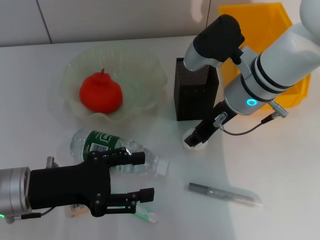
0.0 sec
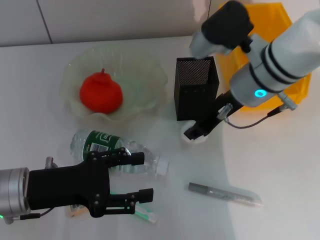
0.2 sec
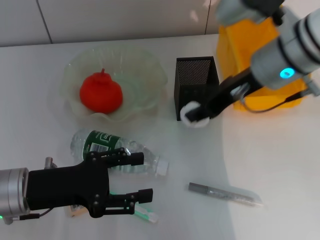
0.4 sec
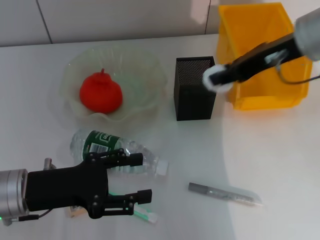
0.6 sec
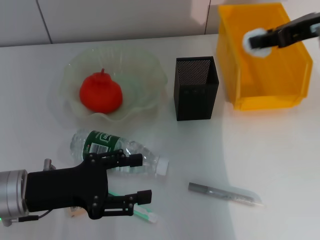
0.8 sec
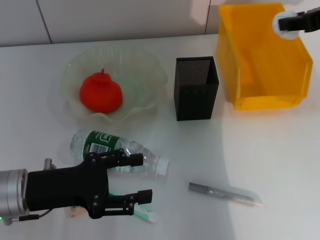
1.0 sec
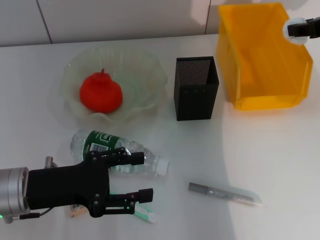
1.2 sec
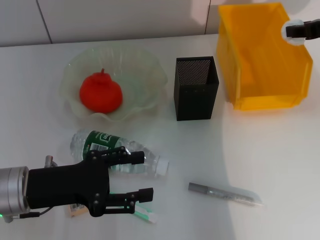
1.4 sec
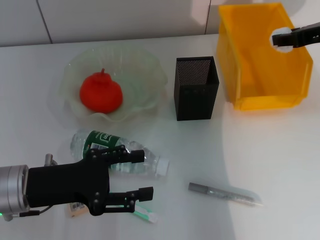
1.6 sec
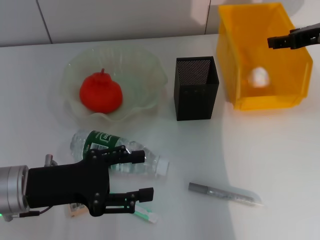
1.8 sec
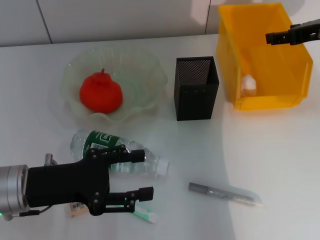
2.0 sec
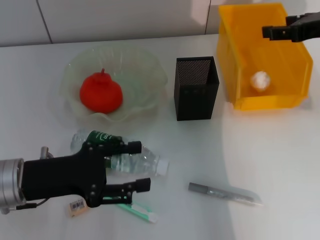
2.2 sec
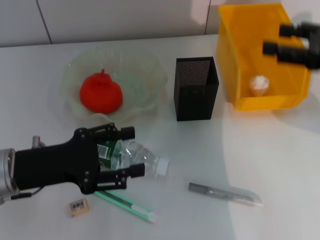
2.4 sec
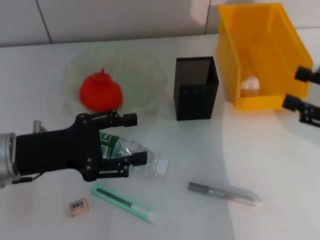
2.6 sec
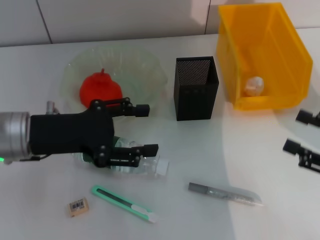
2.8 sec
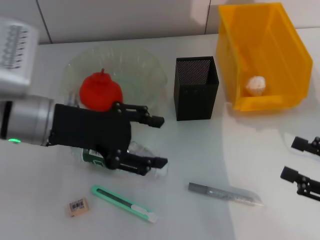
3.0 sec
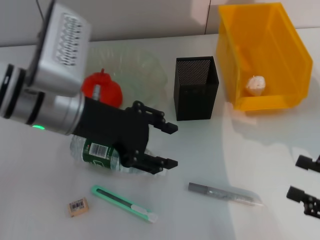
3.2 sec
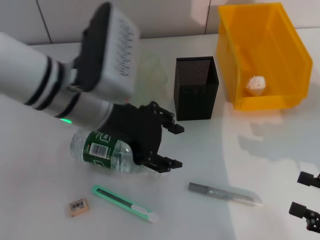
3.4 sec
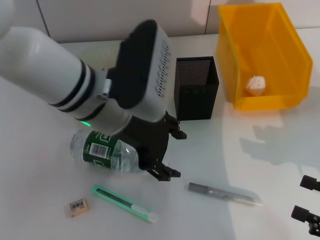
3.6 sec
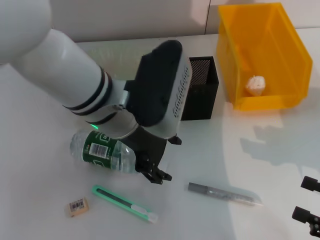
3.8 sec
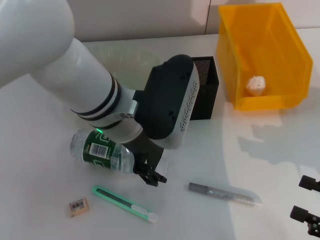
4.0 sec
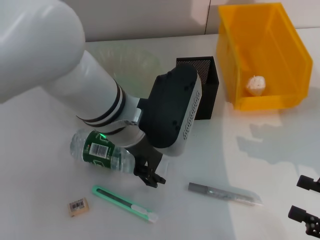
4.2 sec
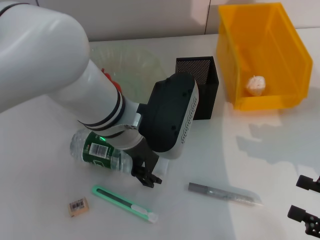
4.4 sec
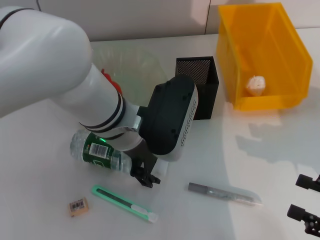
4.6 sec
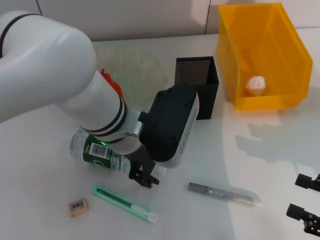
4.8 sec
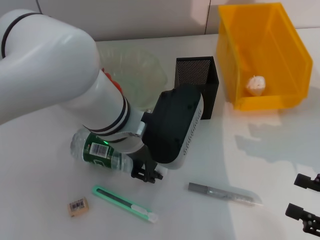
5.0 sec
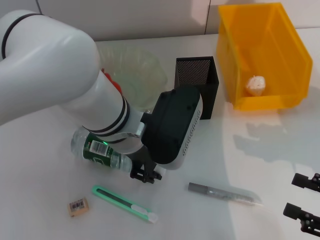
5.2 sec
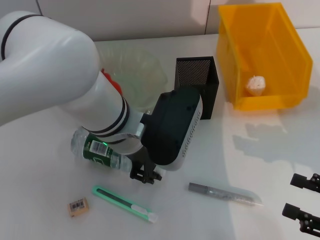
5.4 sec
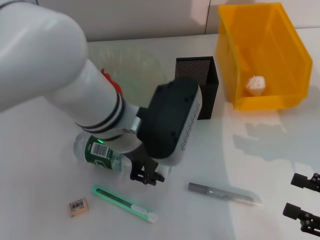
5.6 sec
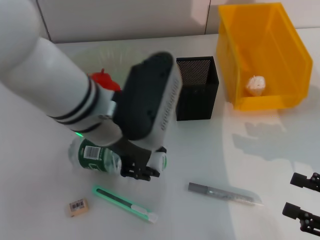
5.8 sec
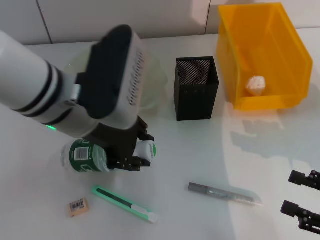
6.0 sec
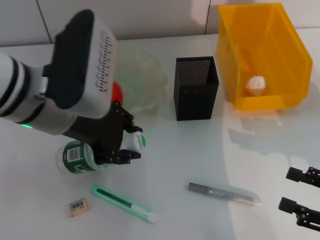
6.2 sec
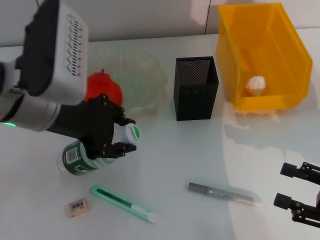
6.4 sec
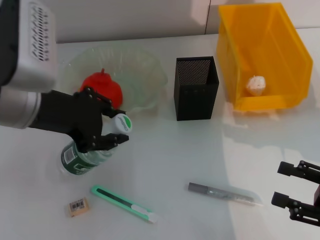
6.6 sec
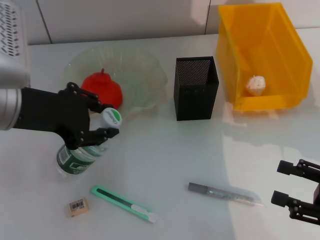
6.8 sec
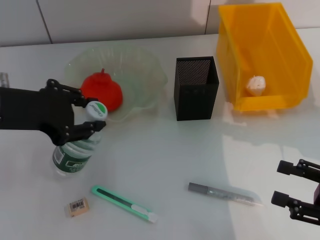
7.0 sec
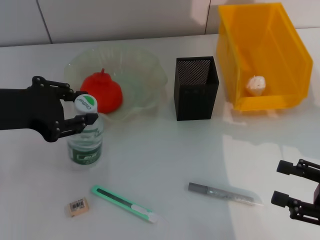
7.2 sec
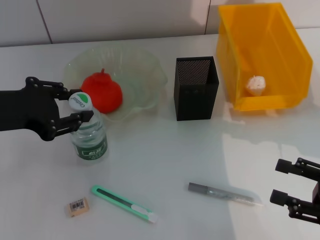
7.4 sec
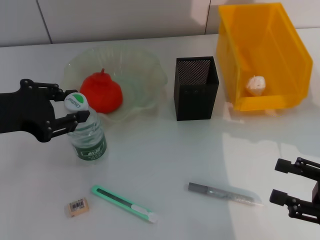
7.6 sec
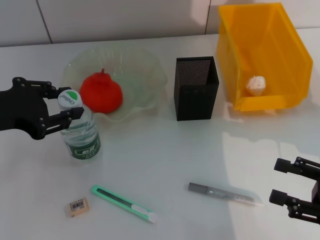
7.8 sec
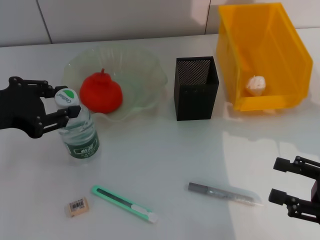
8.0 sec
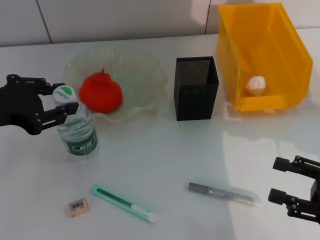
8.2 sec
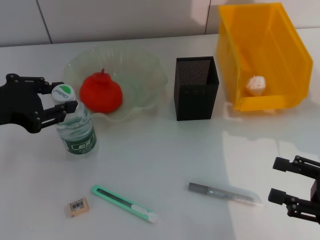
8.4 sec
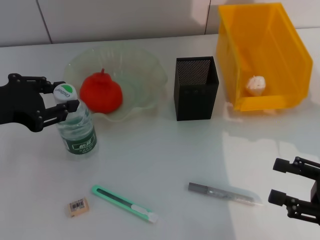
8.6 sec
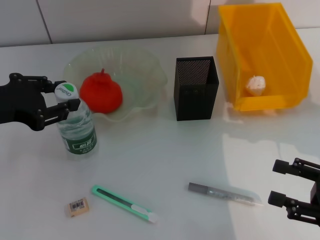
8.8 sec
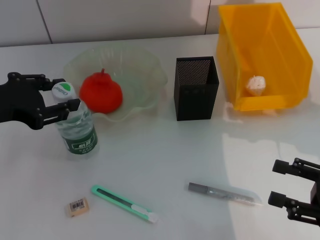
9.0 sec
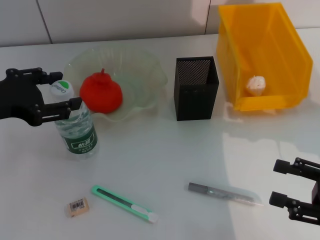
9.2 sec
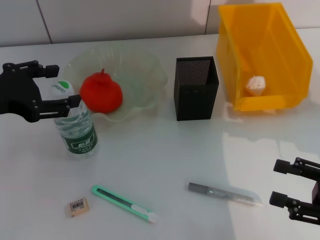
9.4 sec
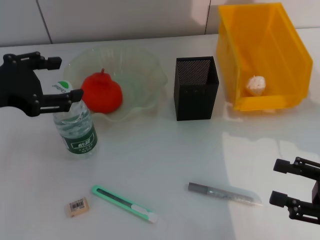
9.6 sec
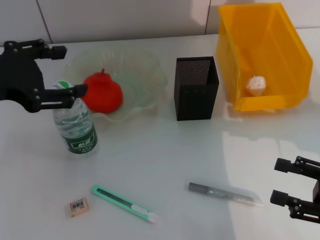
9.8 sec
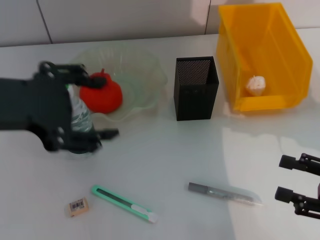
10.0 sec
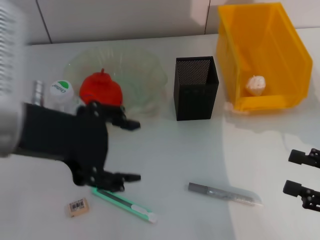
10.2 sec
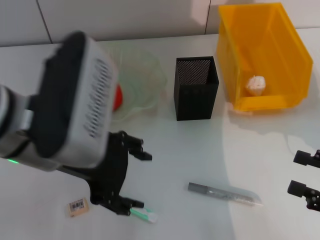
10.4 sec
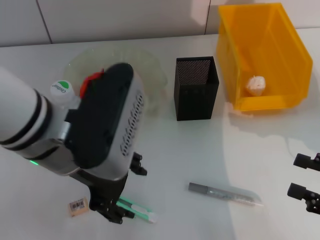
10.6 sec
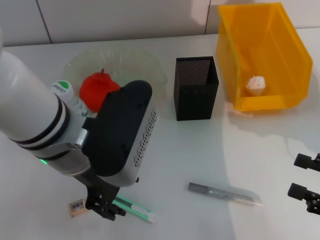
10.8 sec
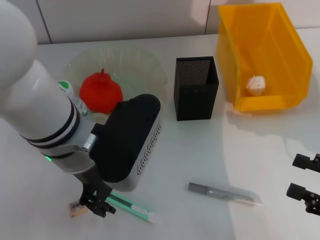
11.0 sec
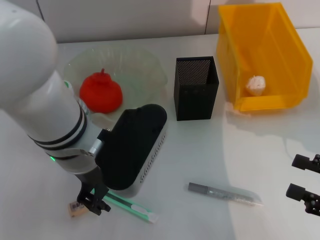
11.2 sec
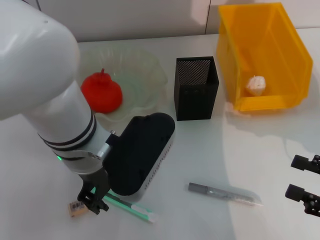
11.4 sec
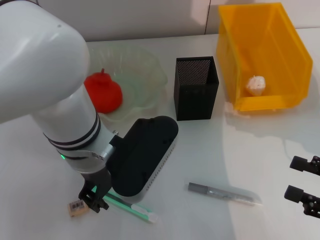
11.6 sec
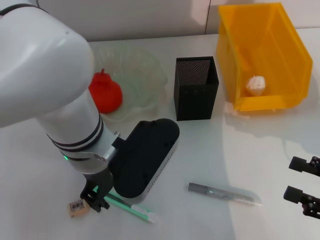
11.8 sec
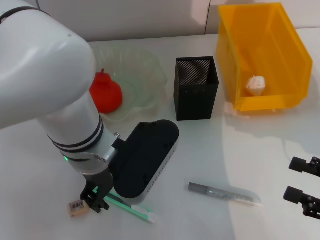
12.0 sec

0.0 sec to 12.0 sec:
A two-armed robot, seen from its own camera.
Step, 0.2 sec to 1.8 sec: Place the paper ball into the trash can with the right hand.
Step, 2.0 sec to 5.2 sec: Grab the water bottle with the left hand.
Step, 5.6 sec to 9.2 sec: Place the water bottle on the table with the left hand.
0.0 sec to 1.6 sec: The right gripper is displaced to the right by about 15 cm.
1.6 sec to 3.0 sec: The right gripper heads backward and downward, covering roughly 25 cm, and opens. Meanwhile the left gripper travels upward and forward by some 10 cm.
3.0 sec to 4.4 sec: The left gripper heads to the right, covering roughly 15 cm.
4.4 sec to 6.0 sec: The left gripper shifts roughly 5 cm to the left, and closes.
6.0 sec to 7.6 sec: The left gripper goes some 15 cm to the left.
7.6 sec to 9.0 sec: The grippers stay close to where they were, moving slightly.
9.0 sec to 10.4 sec: The left gripper shifts some 15 cm to the right, and opens its fingers.
10.4 sec to 12.0 sec: The left gripper shifts approximately 10 cm downward and to the right, and closes up.

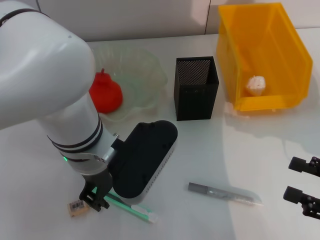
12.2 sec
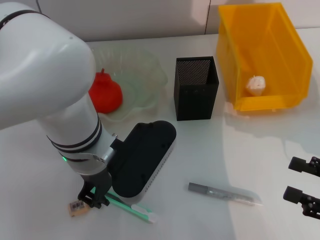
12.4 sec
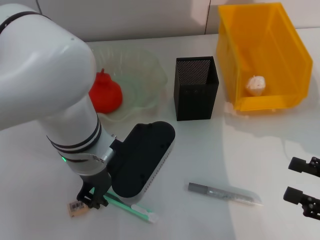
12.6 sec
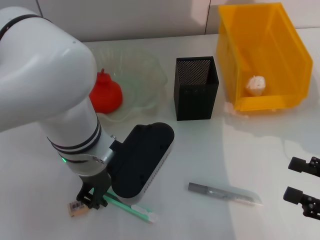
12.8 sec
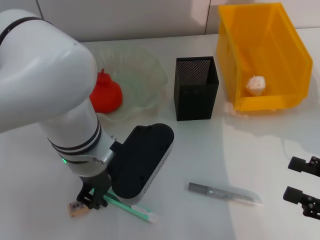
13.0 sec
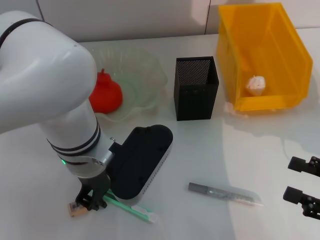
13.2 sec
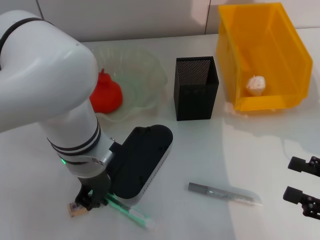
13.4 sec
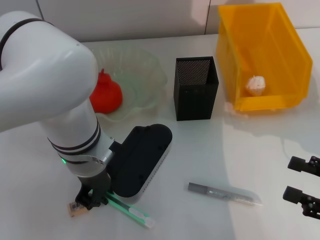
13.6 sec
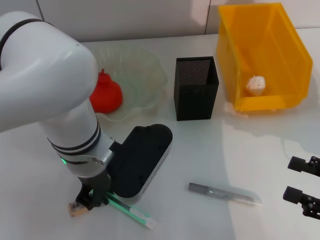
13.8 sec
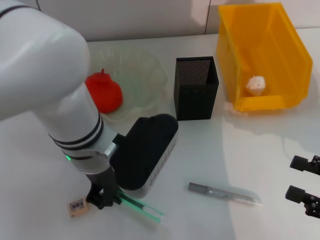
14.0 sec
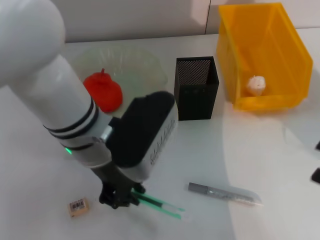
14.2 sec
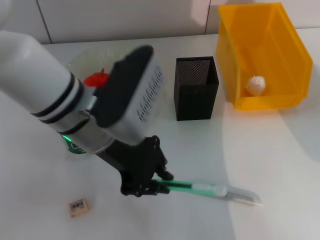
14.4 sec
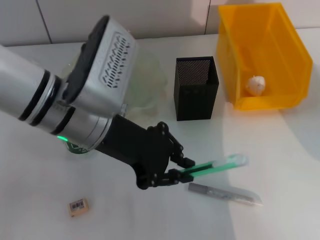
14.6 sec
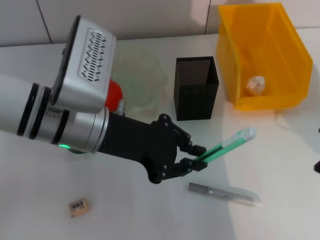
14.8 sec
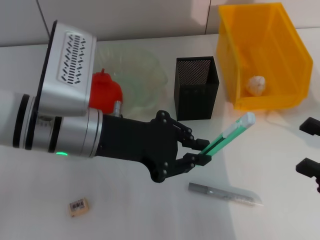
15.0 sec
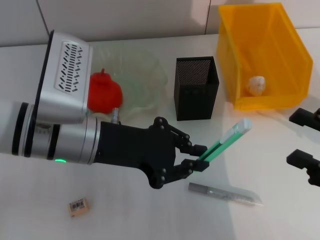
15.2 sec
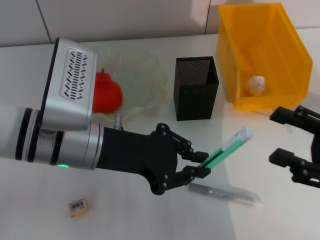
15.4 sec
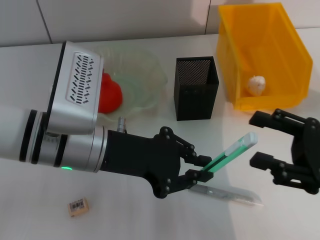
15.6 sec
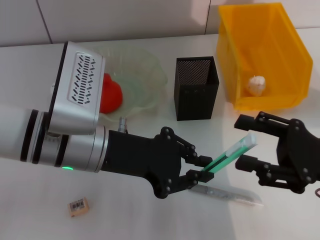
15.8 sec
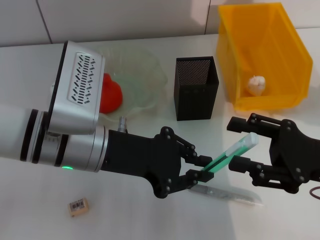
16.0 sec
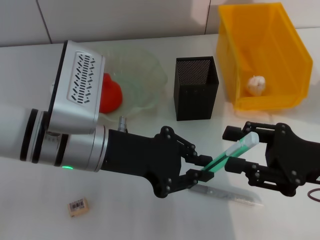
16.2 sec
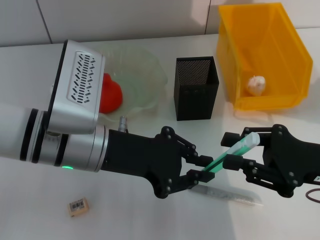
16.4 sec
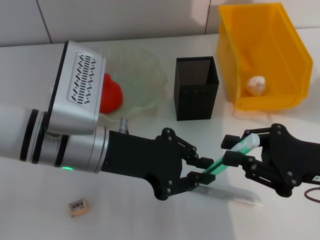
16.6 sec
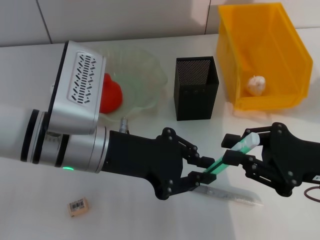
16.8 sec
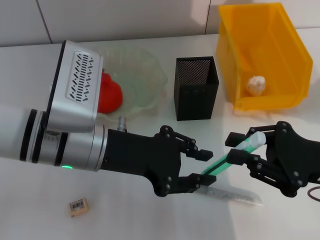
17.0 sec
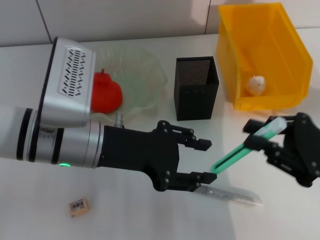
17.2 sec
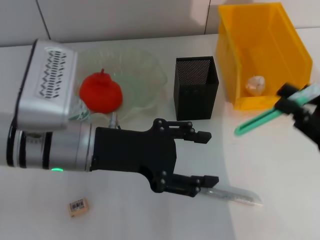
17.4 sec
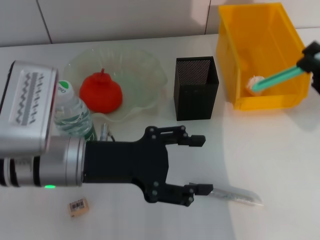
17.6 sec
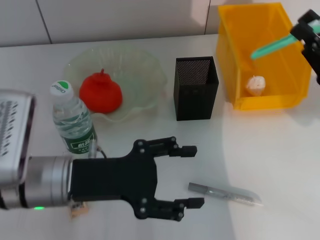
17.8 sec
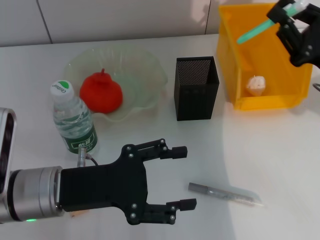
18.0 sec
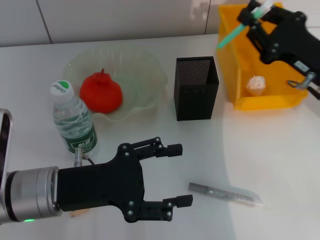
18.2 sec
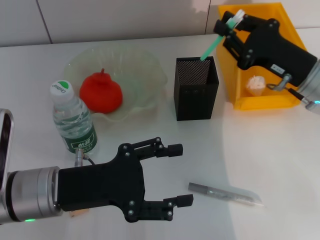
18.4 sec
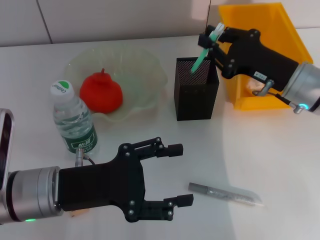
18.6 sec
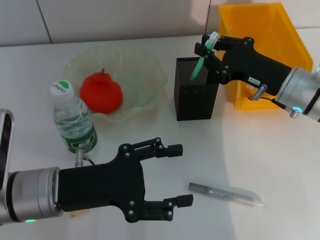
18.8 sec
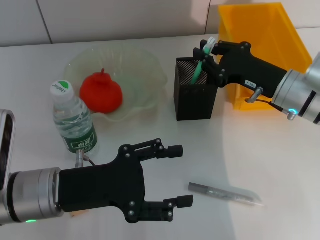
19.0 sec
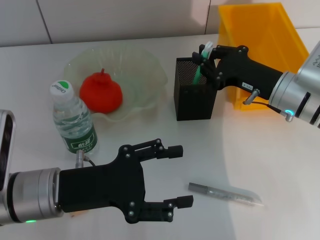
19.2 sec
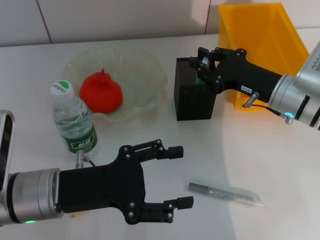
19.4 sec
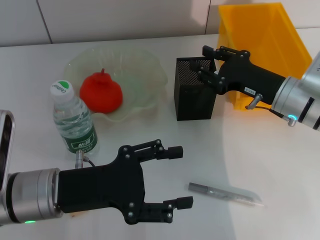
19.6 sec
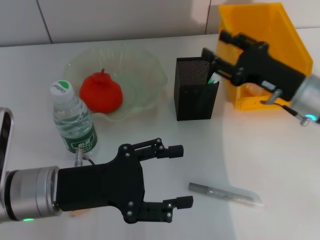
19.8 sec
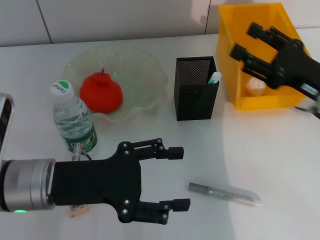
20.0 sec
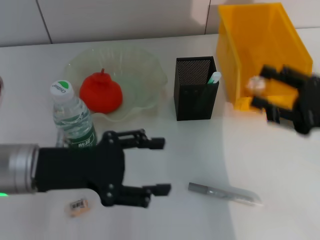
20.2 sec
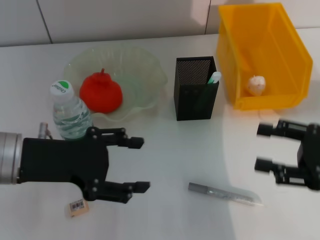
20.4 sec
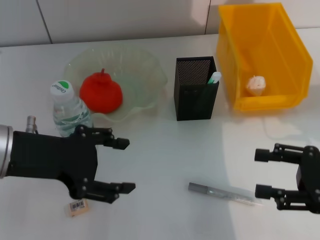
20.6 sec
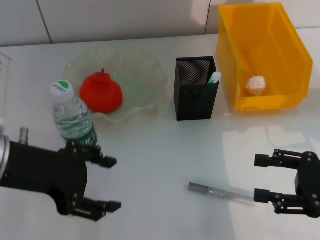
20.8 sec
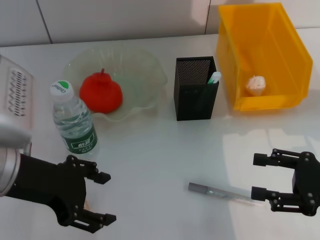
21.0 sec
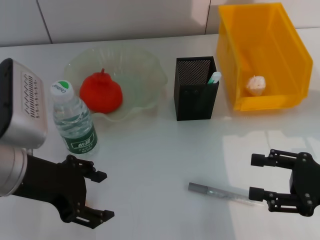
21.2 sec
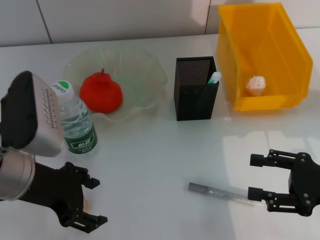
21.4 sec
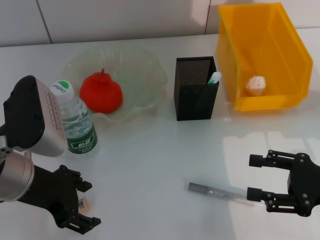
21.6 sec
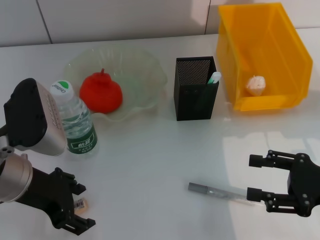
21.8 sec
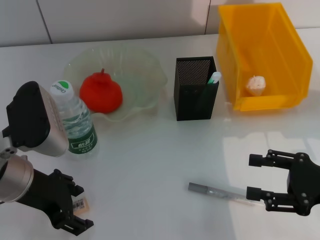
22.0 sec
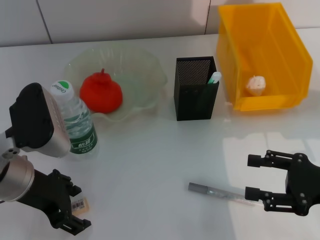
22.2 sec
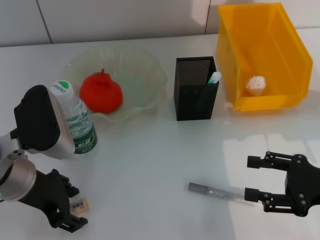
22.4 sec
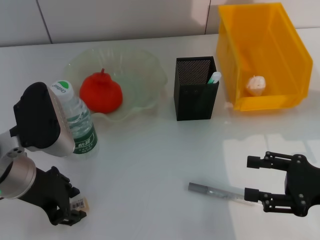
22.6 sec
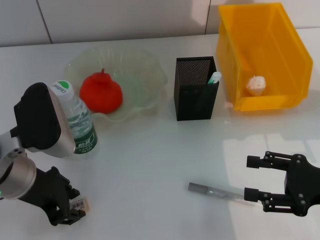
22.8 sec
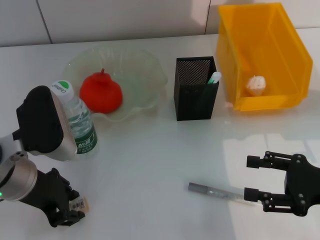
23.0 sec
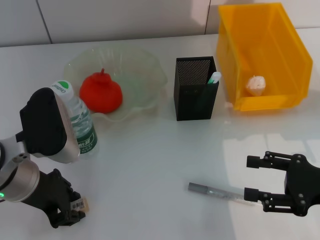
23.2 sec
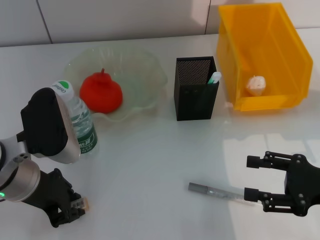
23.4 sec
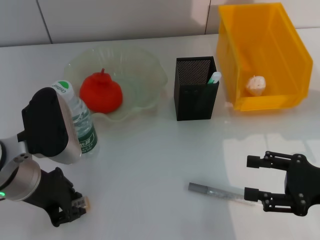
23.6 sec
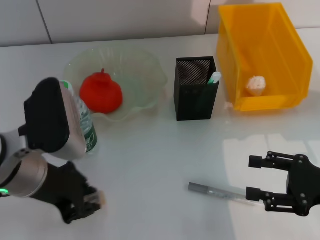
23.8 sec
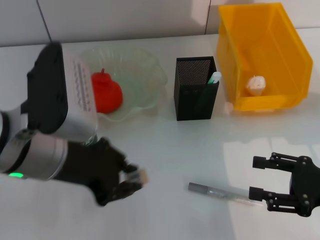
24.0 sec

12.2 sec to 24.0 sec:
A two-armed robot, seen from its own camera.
Step, 13.8 sec to 17.0 sec: Pass the blue utility knife from the left hand to the right hand.
Step, 17.2 sec to 19.6 sec: Place the blue utility knife into the pen holder with the right hand.
Step, 19.8 sec to 23.2 sec: Grab the eraser with the left hand.
12.2 sec to 13.6 sec: The left gripper closes up.
15.2 sec to 16.6 sec: The right gripper is displaced to the left by approximately 5 cm.
16.6 sec to 18.2 sec: The right gripper travels forward by some 10 cm. Meanwhile the left gripper moves to the left and downward, roughly 10 cm, and opens.
18.2 sec to 19.6 sec: The right gripper ends up approximately 5 cm from where it was.
19.6 sec to 21.0 sec: The left gripper is displaced upward by roughly 10 cm. The right gripper shifts about 15 cm backward and to the right, and opens up.
22.6 sec to 24.0 sec: The left gripper goes roughly 5 cm upward, and closes its fingers.
